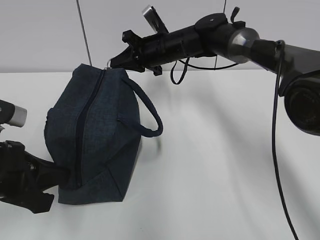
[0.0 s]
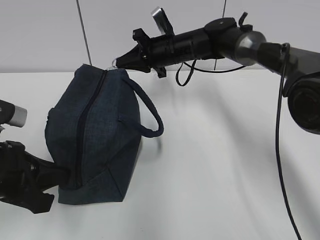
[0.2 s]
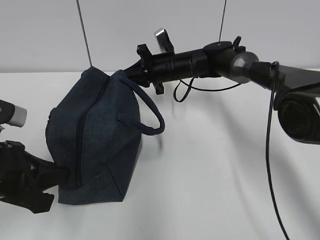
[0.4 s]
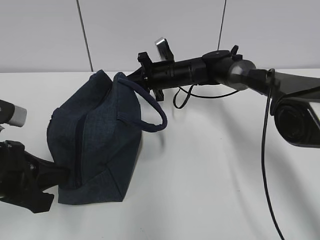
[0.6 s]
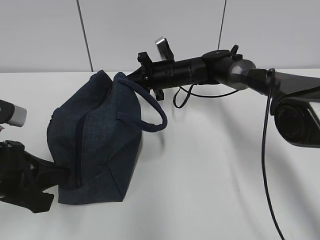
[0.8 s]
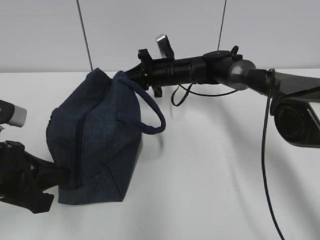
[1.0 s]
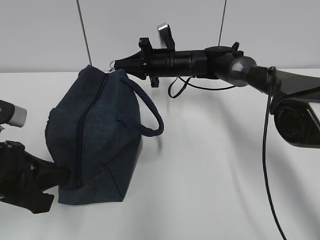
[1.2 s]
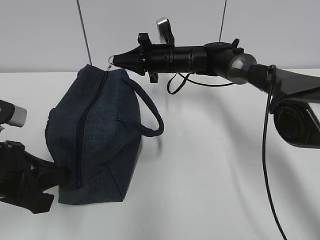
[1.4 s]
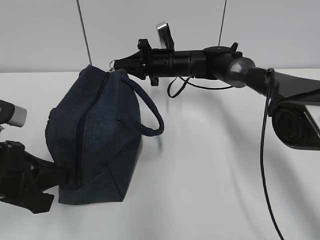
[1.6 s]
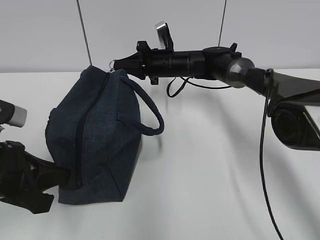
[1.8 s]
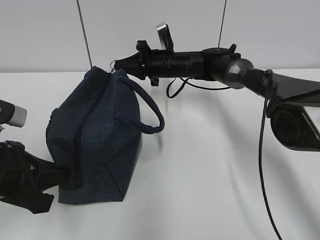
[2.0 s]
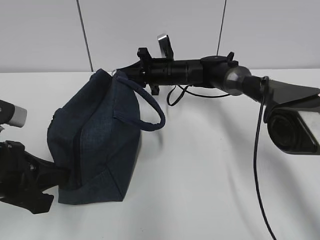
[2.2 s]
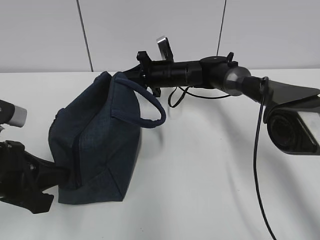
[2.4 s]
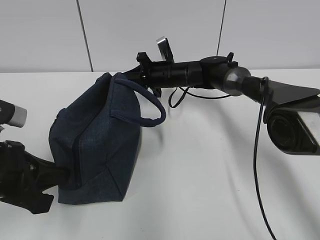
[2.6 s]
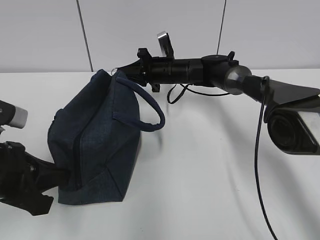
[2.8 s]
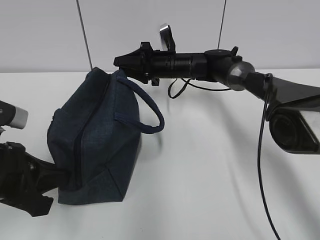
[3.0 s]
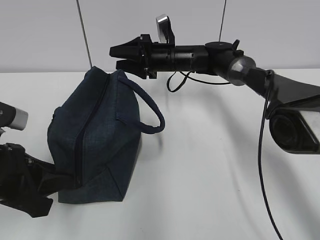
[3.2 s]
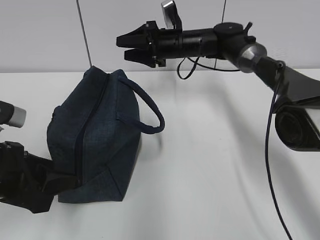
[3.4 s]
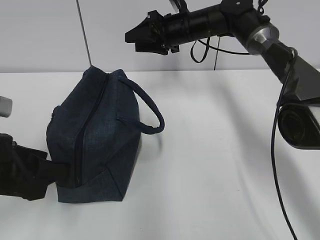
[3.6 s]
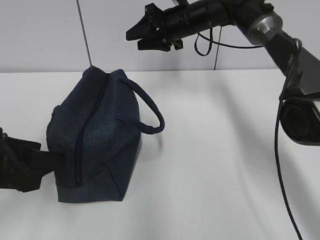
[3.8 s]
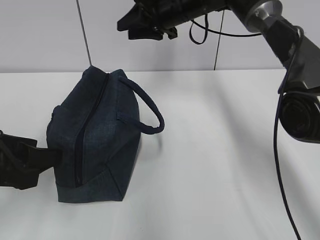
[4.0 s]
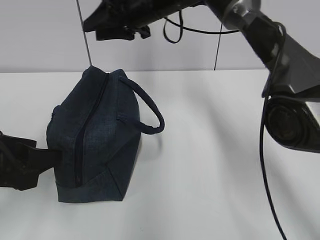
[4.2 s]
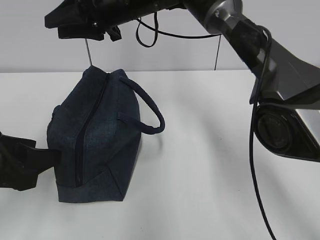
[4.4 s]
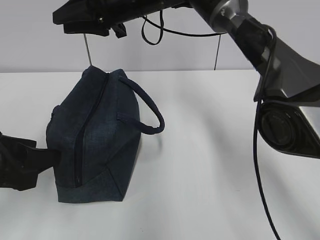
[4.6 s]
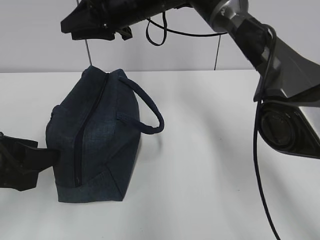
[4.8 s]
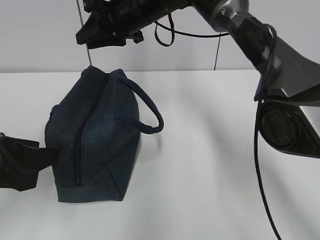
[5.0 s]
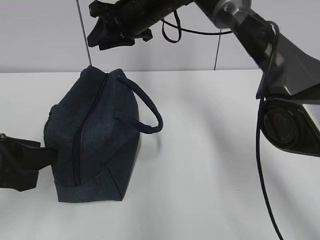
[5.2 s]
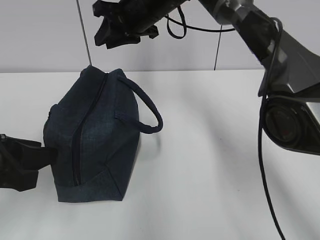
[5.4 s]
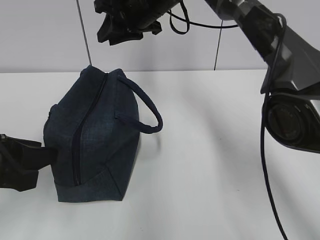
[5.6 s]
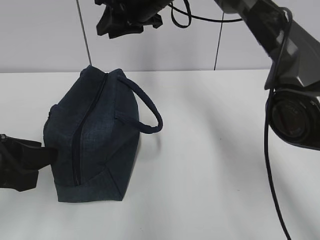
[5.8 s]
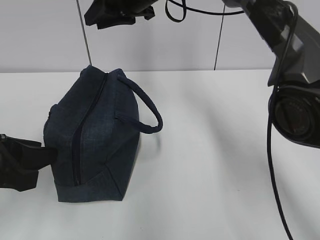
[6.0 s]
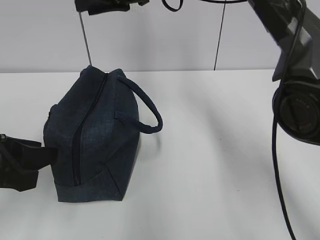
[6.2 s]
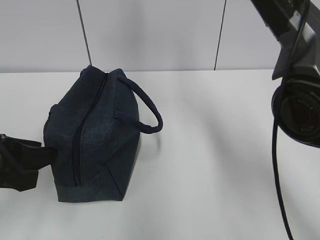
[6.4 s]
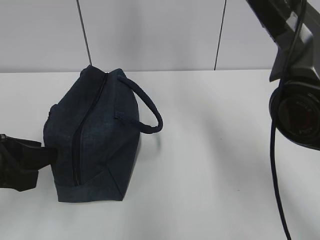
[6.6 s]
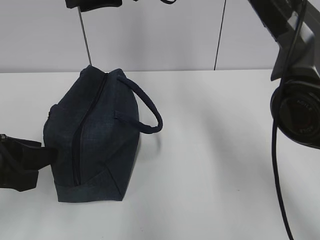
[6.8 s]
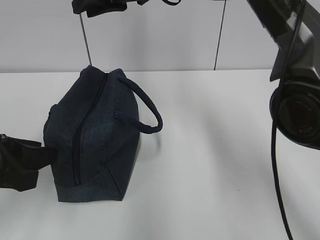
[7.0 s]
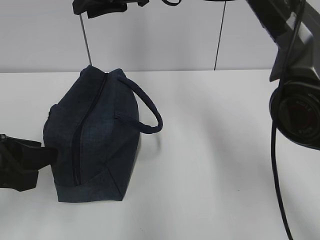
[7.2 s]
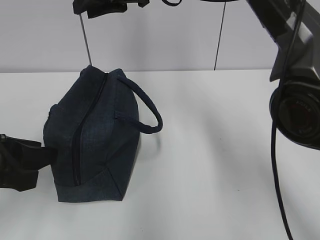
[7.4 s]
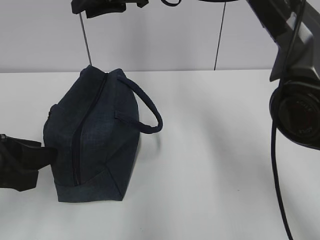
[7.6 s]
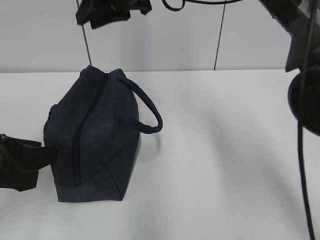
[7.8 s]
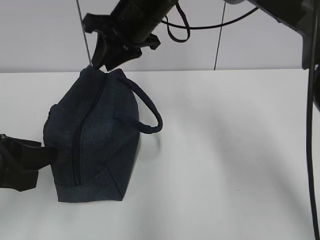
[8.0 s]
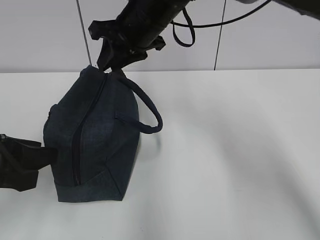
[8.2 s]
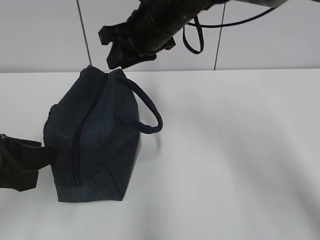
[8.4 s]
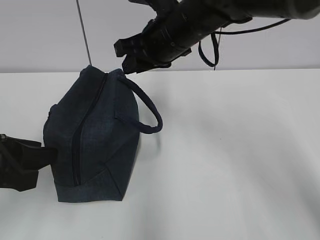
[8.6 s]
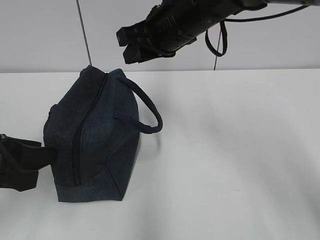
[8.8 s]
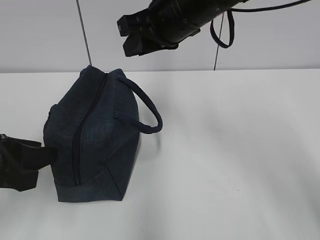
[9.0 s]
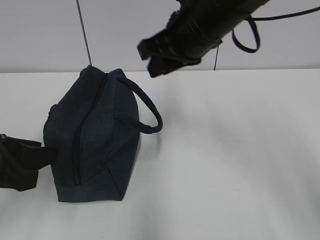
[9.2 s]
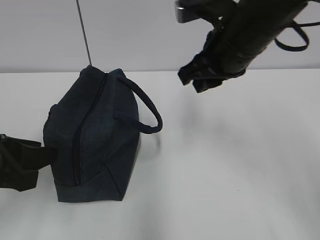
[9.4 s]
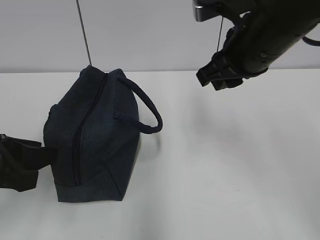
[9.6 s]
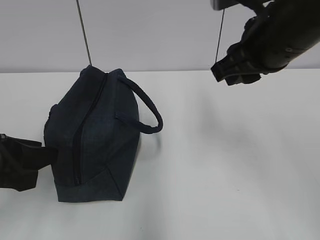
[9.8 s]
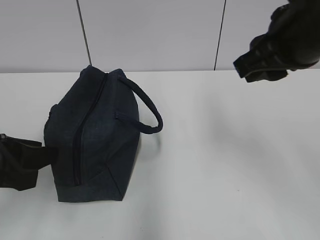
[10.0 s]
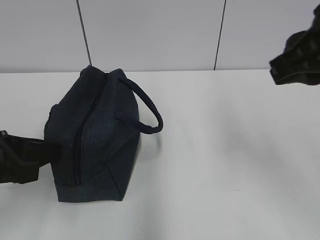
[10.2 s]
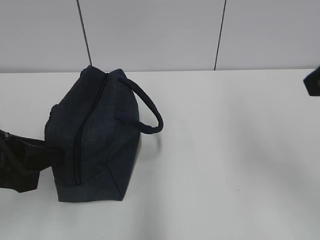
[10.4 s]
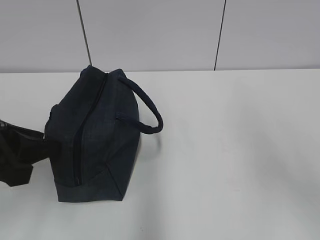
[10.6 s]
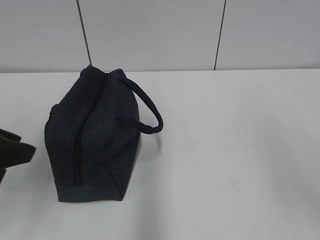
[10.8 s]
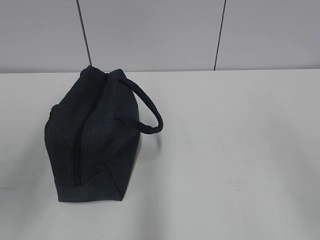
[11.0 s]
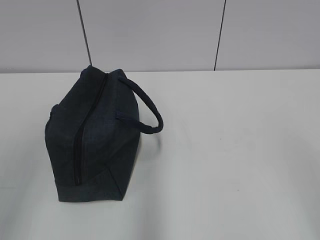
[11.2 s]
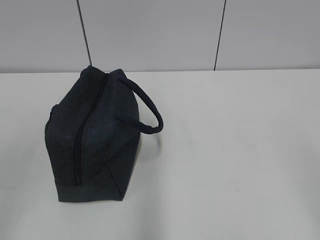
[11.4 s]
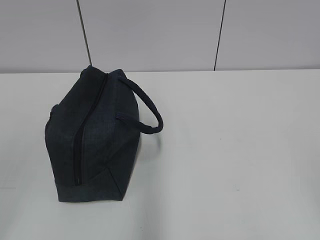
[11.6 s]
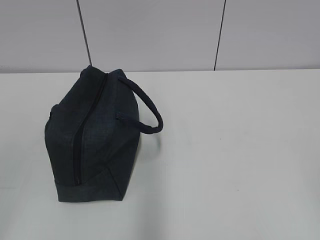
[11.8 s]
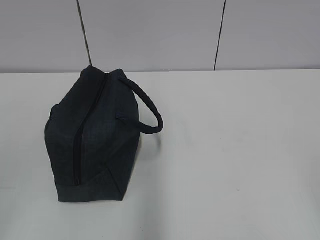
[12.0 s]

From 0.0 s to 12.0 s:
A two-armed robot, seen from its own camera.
From 0.0 s to 1.6 s: The right gripper moves some 5 cm.
From 1.6 s to 3.0 s: The right gripper opens its fingers.
From 3.0 s to 4.4 s: The left gripper opens its fingers. Meanwhile the right gripper goes approximately 20 cm upward, backward and to the left.
From 6.0 s to 7.6 s: The grippers make only small movements.
From 7.6 s to 9.0 s: The right gripper goes some 10 cm backward and to the right.
From 9.0 s to 10.4 s: The right gripper is displaced backward and to the right by roughly 25 cm.
From 10.4 s to 12.0 s: The left gripper travels backward and to the left by about 20 cm. The right gripper goes roughly 20 cm backward, to the right and downward.

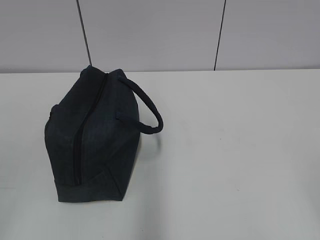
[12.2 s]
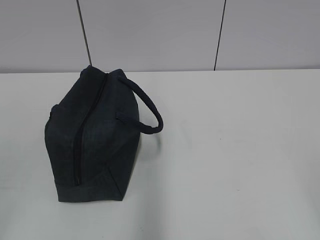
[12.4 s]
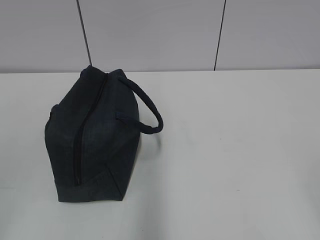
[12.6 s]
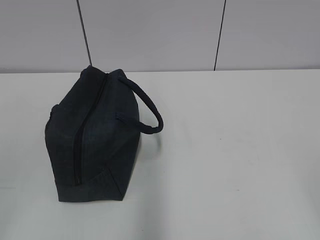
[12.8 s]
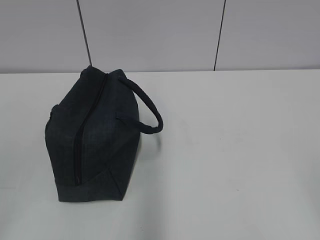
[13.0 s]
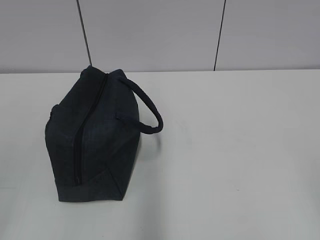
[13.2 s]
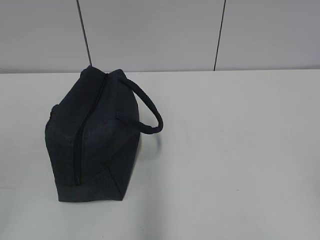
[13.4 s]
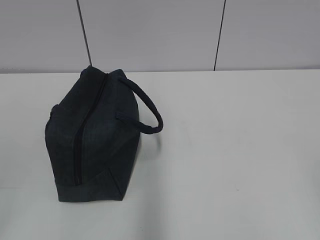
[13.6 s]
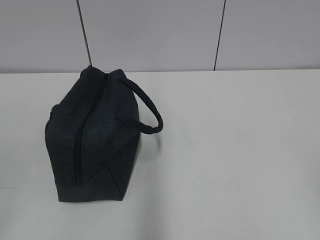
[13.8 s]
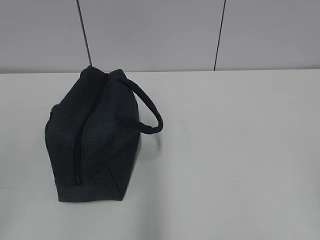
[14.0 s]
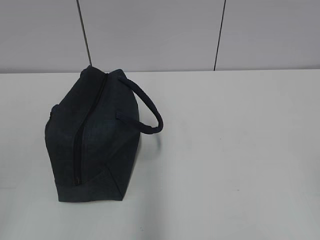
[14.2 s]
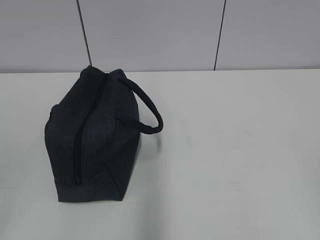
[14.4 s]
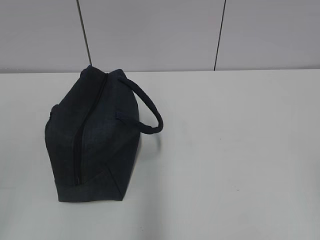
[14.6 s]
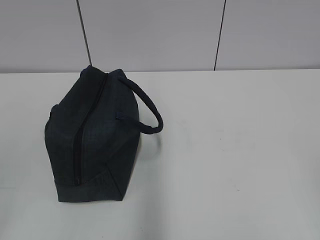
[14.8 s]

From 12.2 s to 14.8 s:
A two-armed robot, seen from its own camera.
From 13.4 s to 14.8 s: Both grippers stay about where they are.
